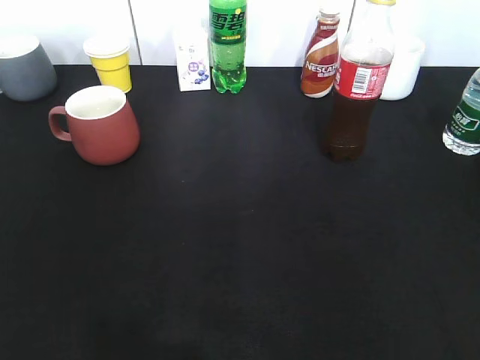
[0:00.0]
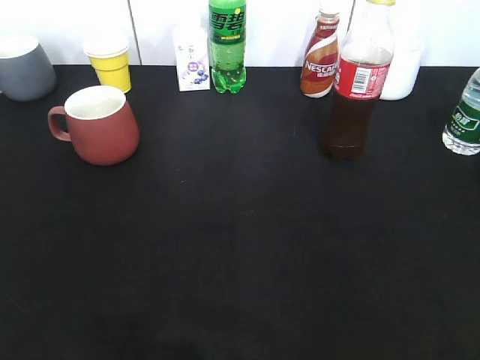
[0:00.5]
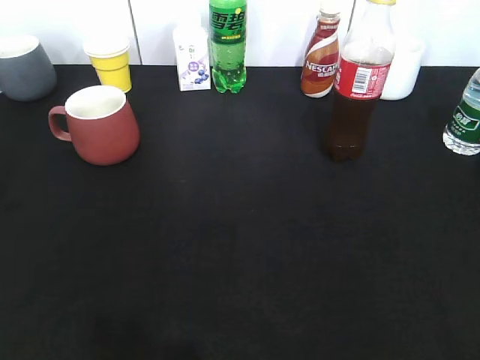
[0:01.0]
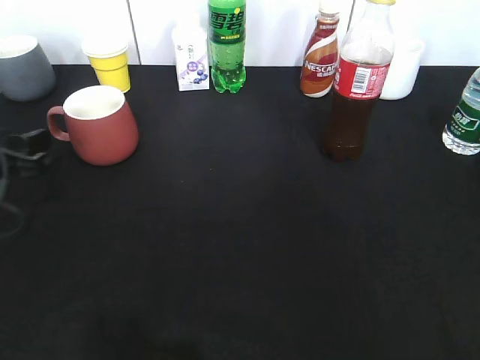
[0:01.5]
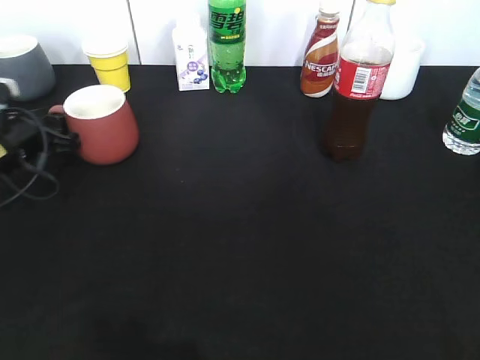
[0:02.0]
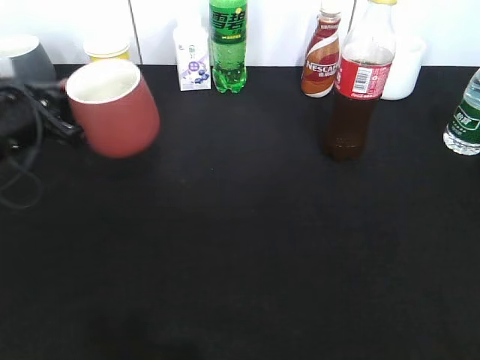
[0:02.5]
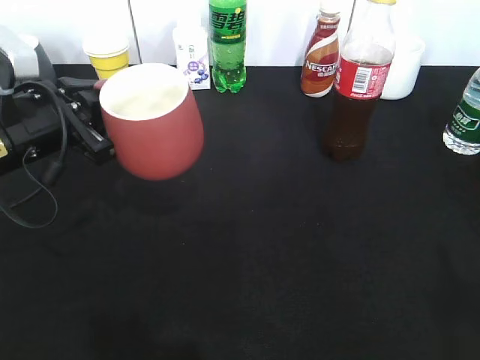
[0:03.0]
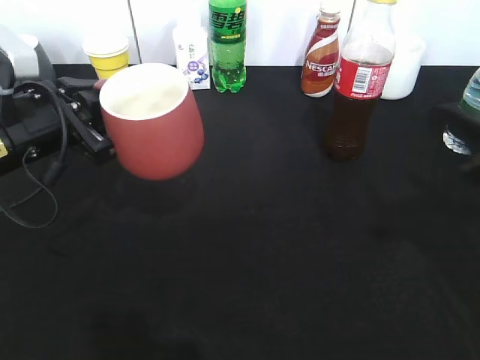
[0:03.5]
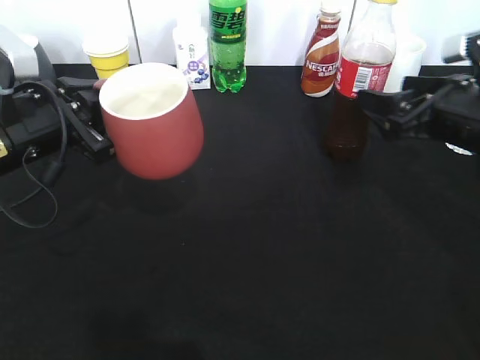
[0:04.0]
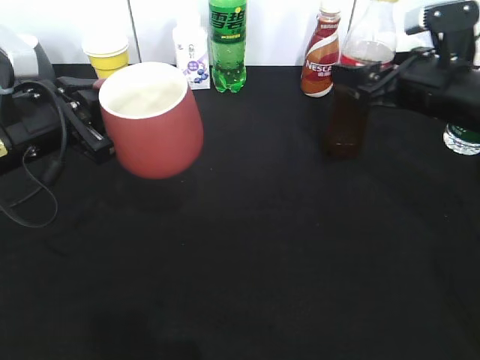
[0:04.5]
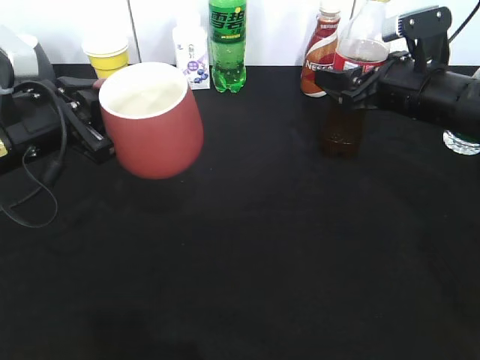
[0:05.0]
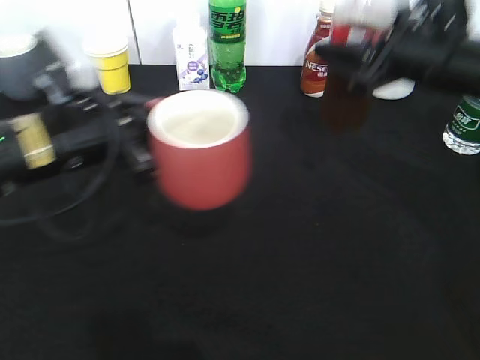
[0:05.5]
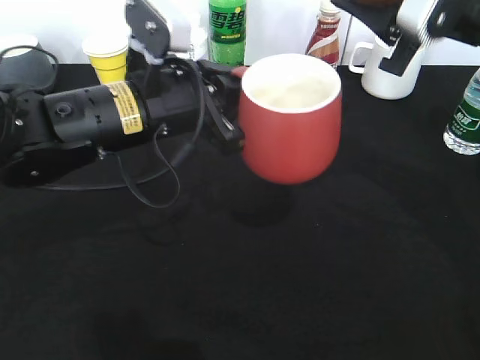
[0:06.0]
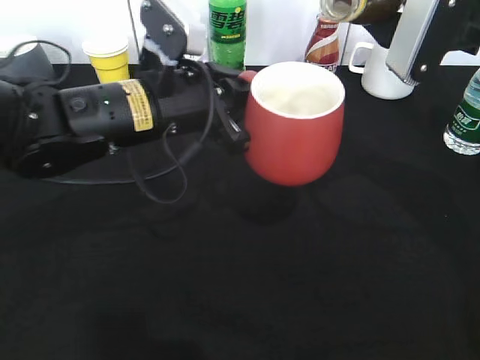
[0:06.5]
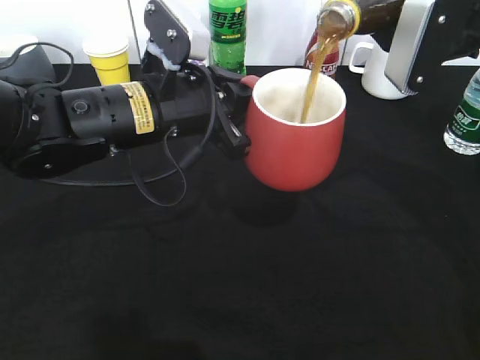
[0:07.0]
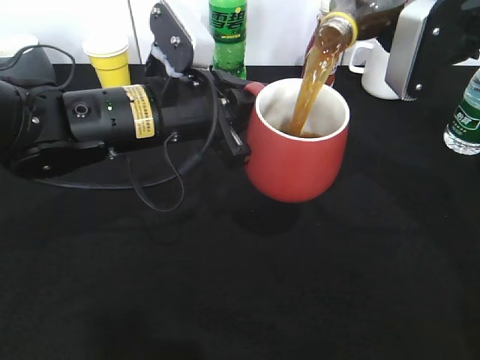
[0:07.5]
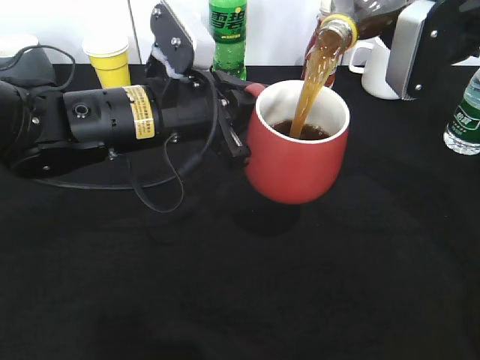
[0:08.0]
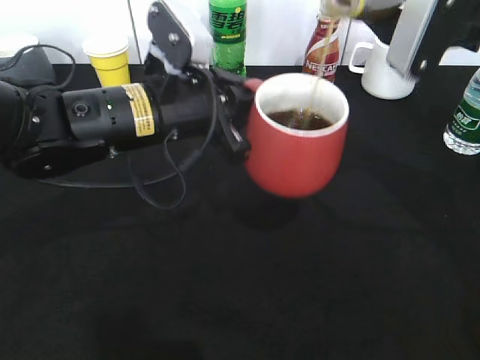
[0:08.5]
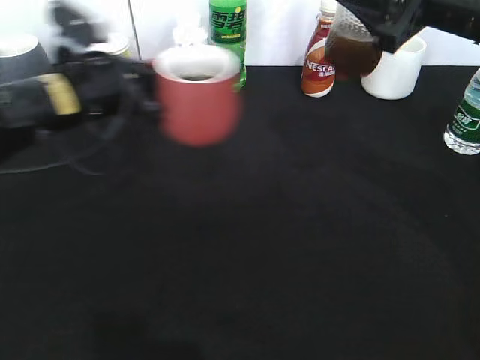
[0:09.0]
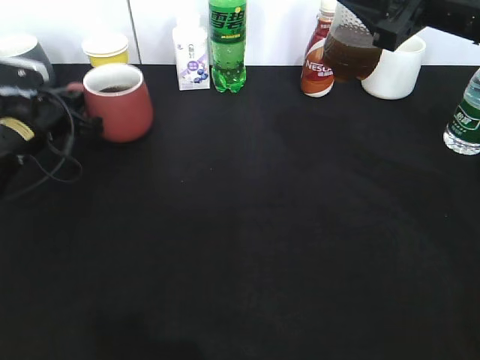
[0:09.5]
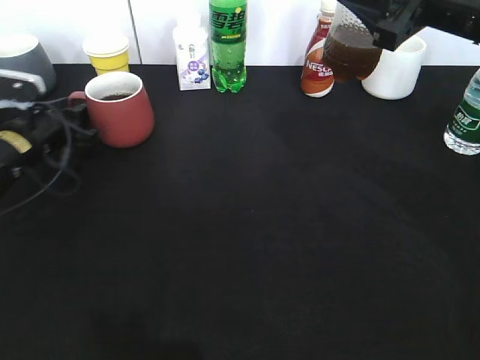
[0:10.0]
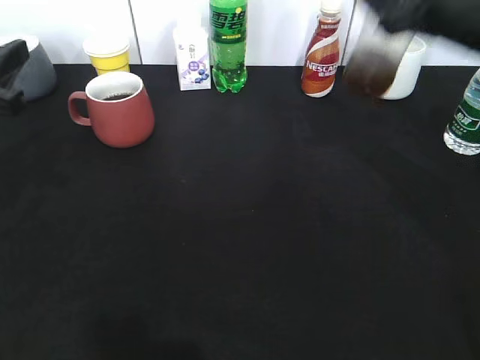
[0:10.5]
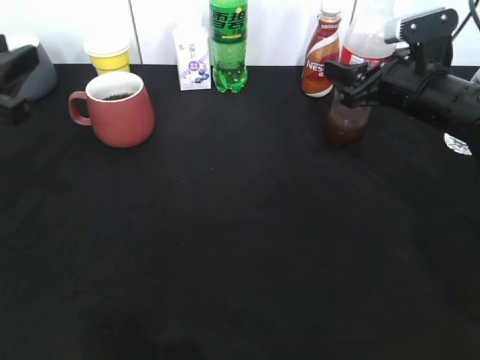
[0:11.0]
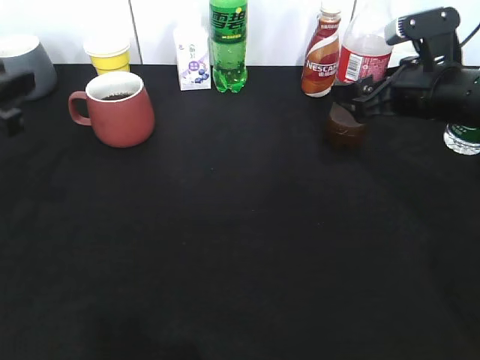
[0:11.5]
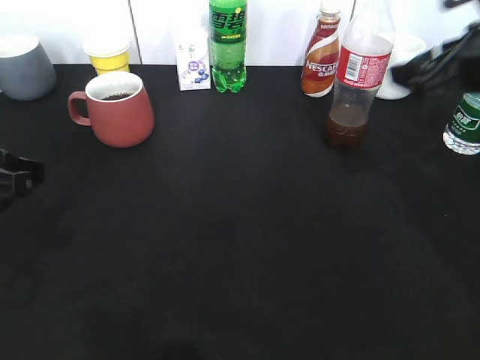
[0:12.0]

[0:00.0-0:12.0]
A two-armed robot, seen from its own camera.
Step, 0:01.0 to 0:02.0: Grasp the red cup with left gripper.
Step, 0:02.5 to 0:03.0: Lift the red cup with left gripper.
Step, 0:03.5 to 0:05.0: Grasp the bottle with cola with right gripper.
Step, 0:05.5 to 0:08.5: Pour the cola from bottle to cup with right gripper.
Step, 0:09.0 to 0:11.5: Place the cola bottle on the table with right gripper.
0:00.0 to 0:02.0: The left gripper goes about 40 cm forward and downward, and opens up.
0:02.0 to 0:04.0: The left gripper moves upward, to the right and backward, about 15 cm, and closes, while the right gripper is displaced forward by some 30 cm, and opens its fingers.
0:04.0 to 0:06.0: The left gripper heads to the right, covering approximately 15 cm; the right gripper is displaced upward by some 10 cm, and closes its fingers.
0:08.0 to 0:10.0: The left gripper shifts about 25 cm to the left, downward and forward, and opens.
0:10.0 to 0:12.0: The right gripper travels downward and back again, some 10 cm each way, and opens, while the left gripper travels backward and upward by roughly 20 cm.

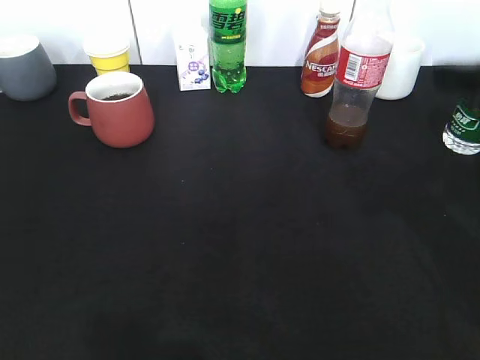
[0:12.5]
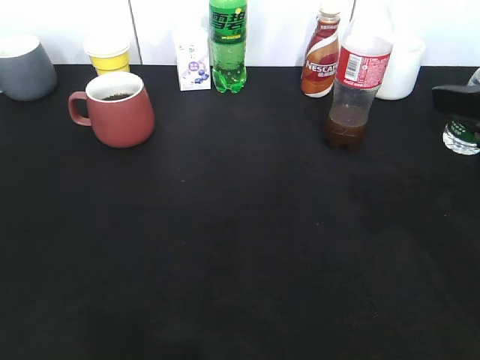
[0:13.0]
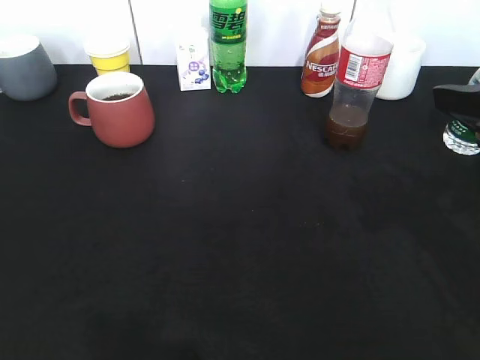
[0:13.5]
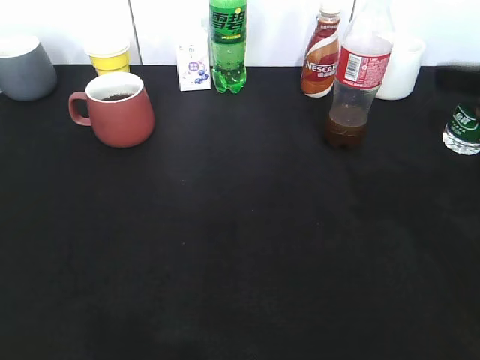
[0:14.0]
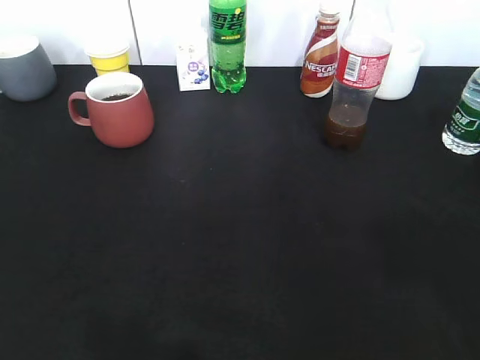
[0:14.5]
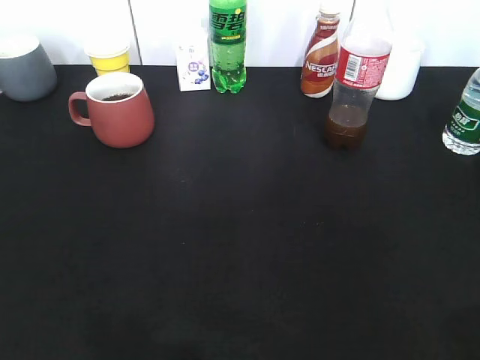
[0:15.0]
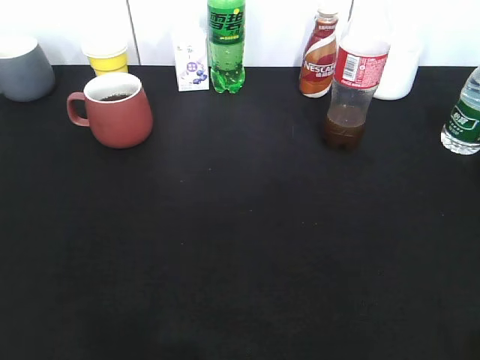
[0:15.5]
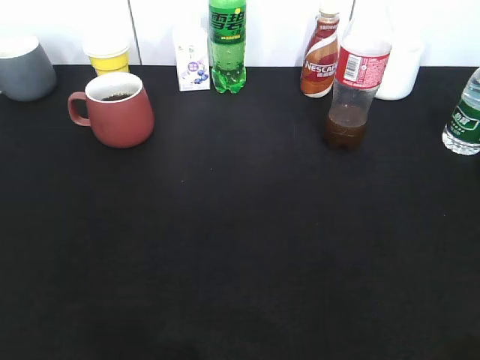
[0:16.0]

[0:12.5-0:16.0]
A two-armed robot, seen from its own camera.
0:12.5 to 0:14.5: The right gripper is displaced backward by roughly 10 cm.
